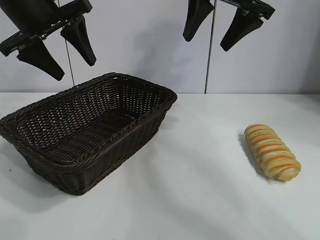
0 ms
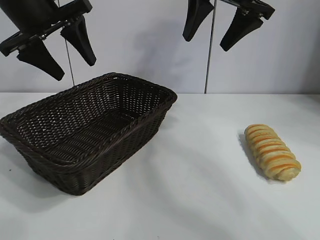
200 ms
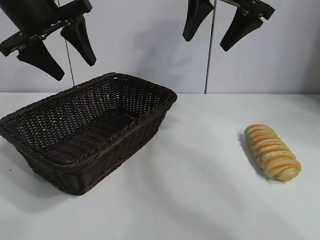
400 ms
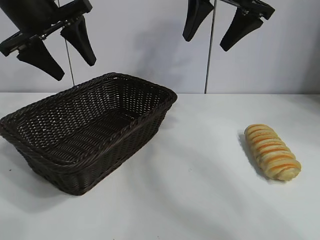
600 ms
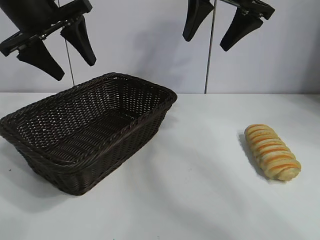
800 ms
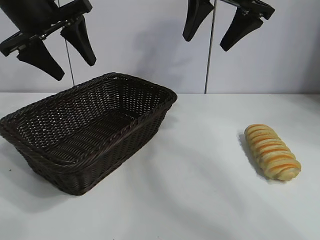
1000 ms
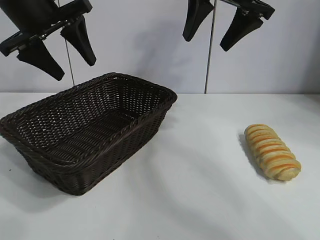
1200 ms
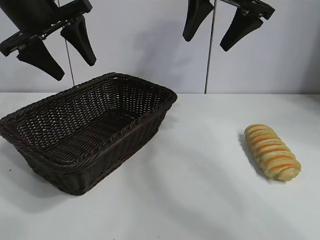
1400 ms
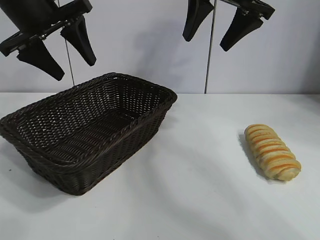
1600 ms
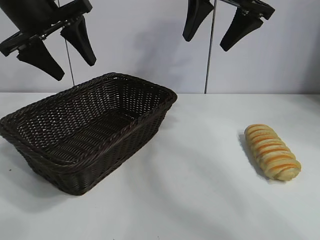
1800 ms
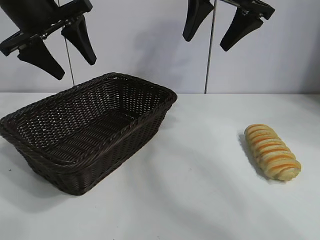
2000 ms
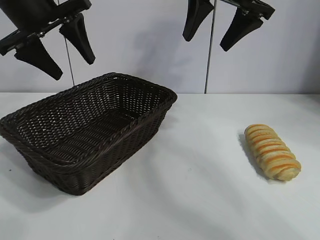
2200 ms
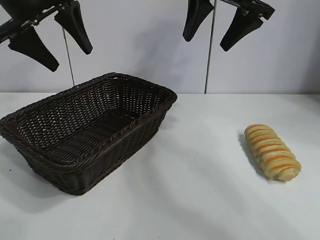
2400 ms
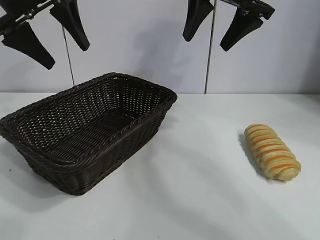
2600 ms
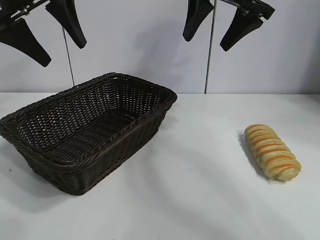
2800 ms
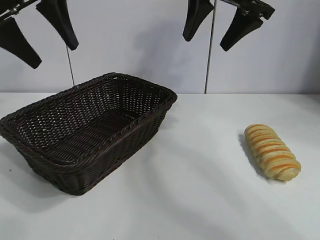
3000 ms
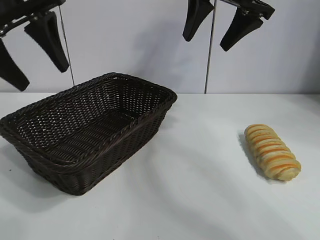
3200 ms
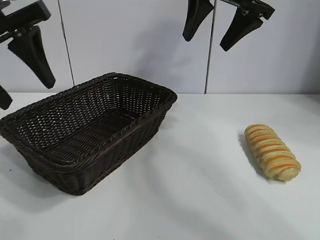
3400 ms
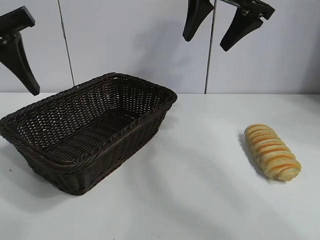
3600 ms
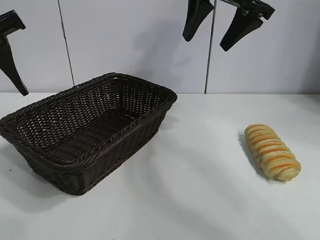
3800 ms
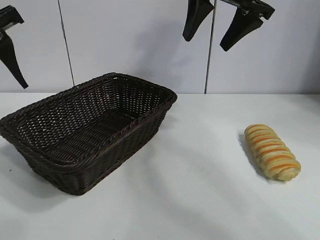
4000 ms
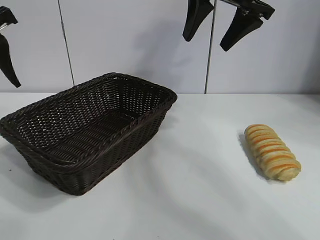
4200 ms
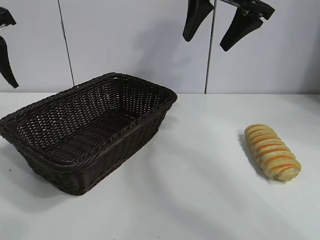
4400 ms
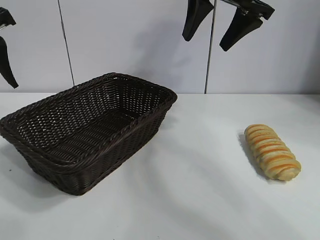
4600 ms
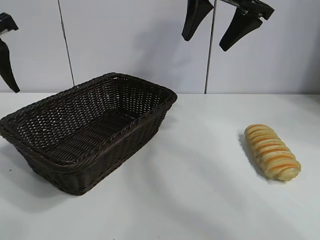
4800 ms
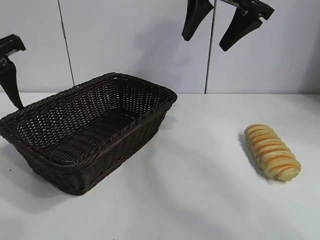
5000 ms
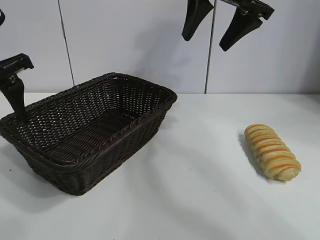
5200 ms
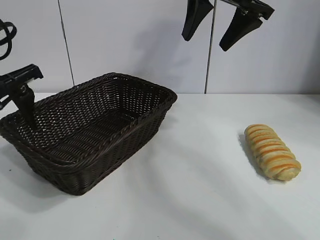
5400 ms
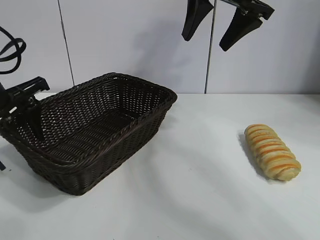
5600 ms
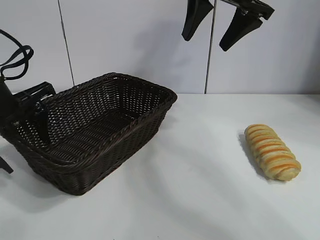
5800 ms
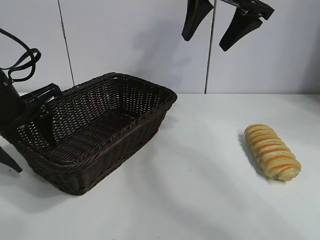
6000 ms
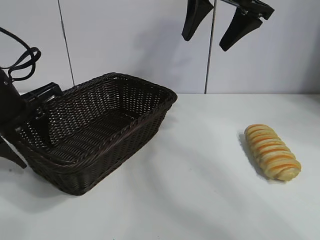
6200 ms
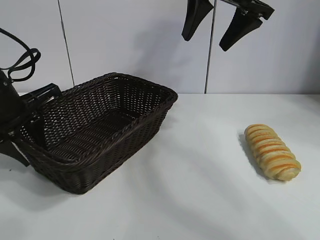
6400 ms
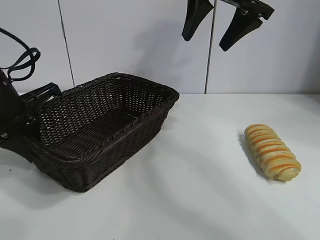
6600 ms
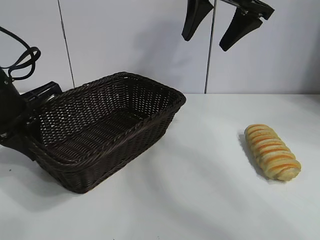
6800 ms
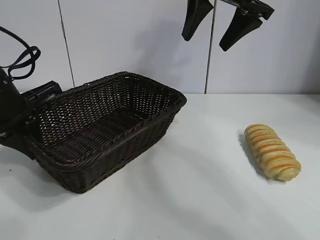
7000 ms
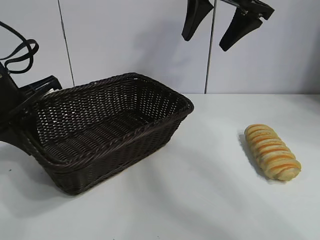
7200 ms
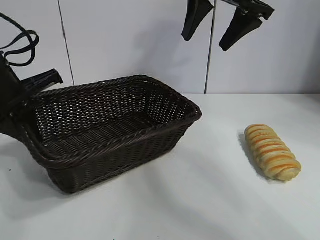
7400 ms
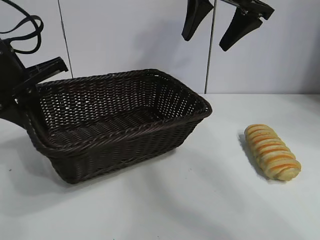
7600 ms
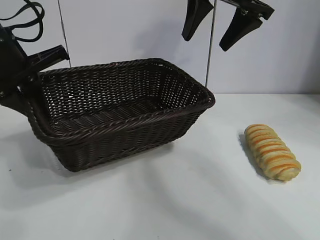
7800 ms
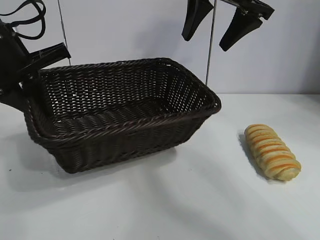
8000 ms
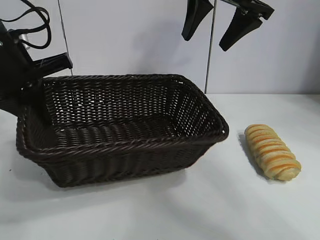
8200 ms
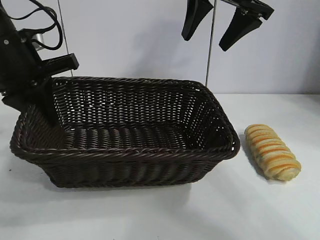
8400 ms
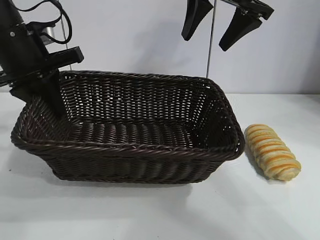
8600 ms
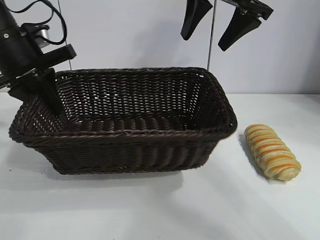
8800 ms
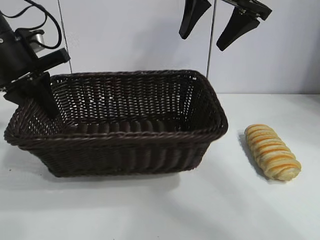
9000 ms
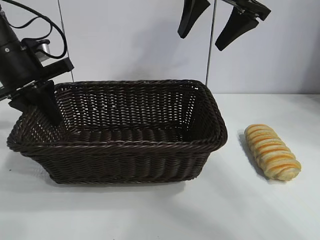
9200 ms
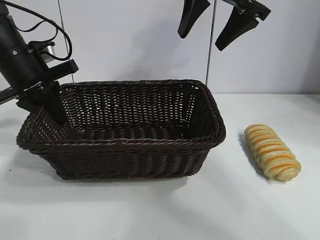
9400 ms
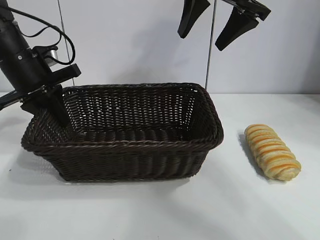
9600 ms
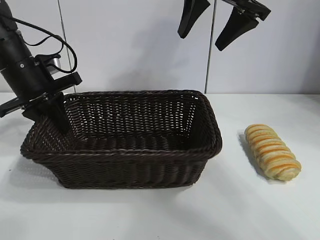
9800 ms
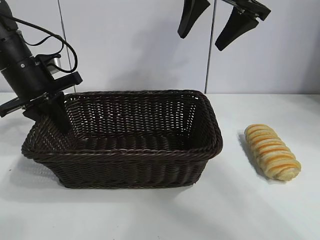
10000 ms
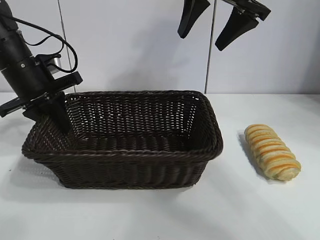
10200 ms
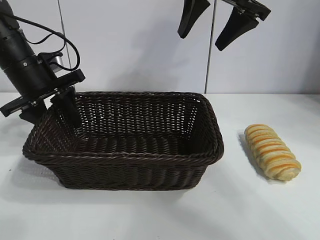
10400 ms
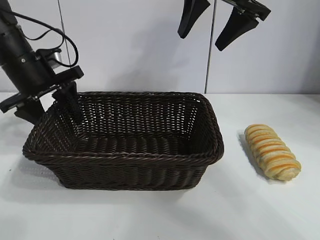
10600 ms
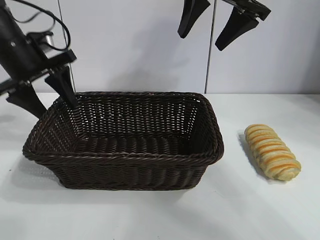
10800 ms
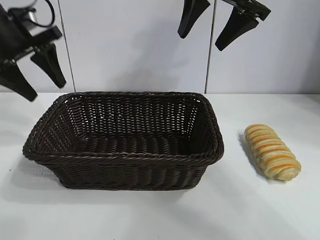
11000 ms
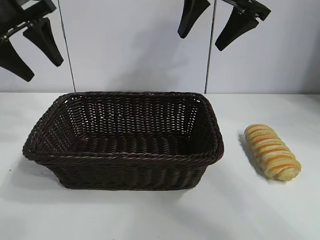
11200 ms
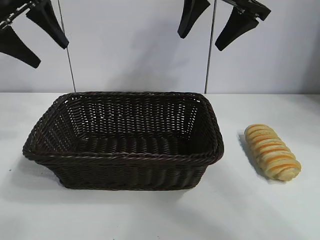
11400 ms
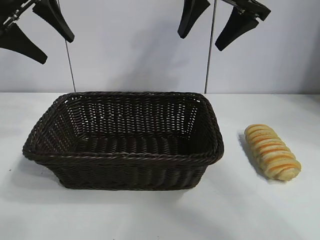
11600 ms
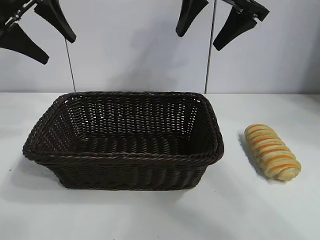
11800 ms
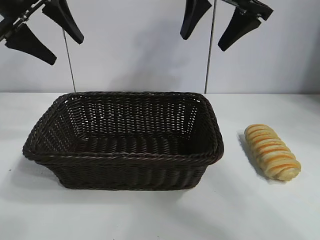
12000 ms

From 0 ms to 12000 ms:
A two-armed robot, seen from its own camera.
Task of the whole recording: pick up the long bread and put it into the basket.
Step, from 1600 ms to 6800 ms: Grasp the basket with the left gripper.
Step, from 7000 ms to 10400 ms: Place the basket in the center of the table with the left gripper.

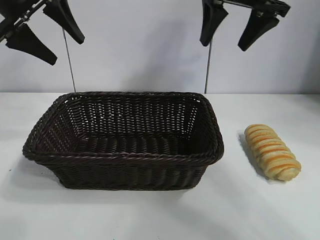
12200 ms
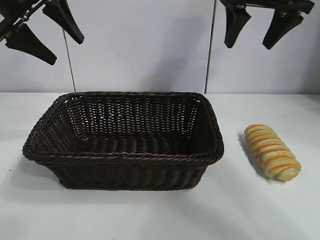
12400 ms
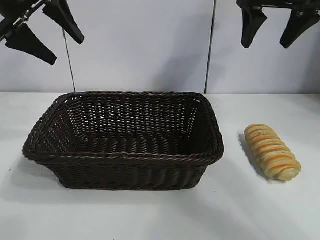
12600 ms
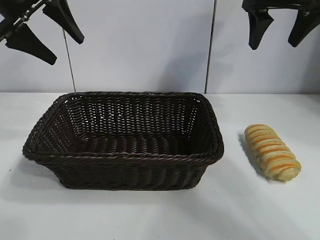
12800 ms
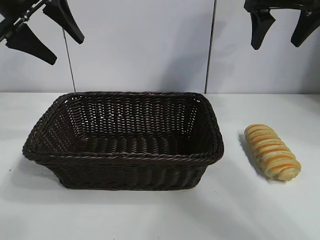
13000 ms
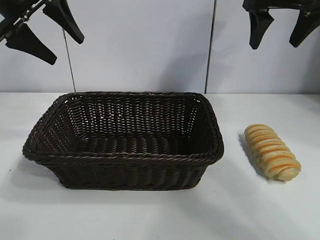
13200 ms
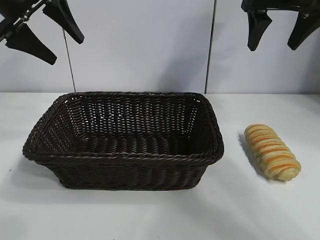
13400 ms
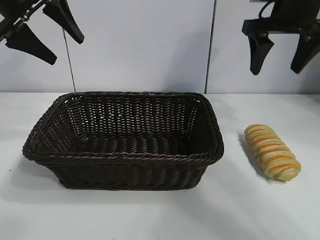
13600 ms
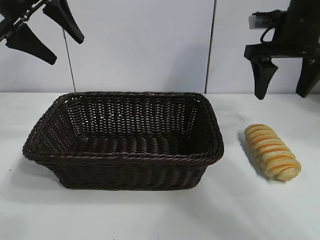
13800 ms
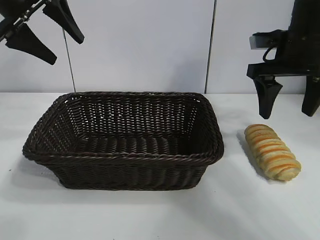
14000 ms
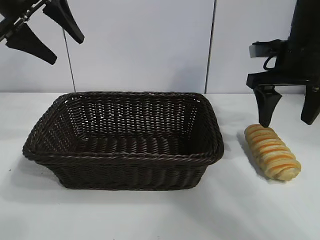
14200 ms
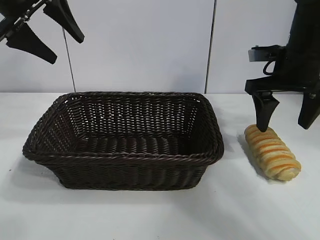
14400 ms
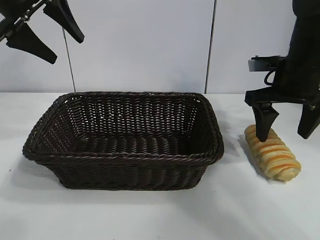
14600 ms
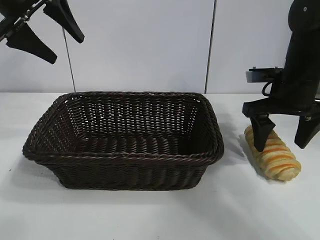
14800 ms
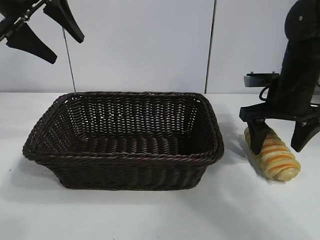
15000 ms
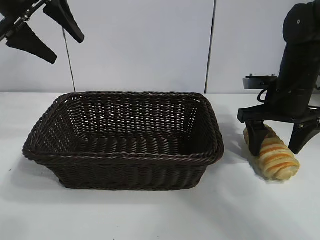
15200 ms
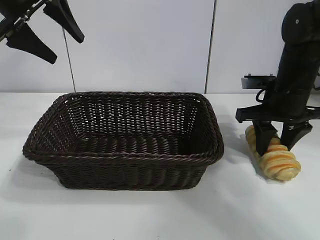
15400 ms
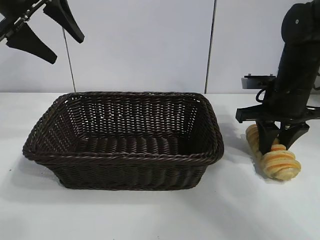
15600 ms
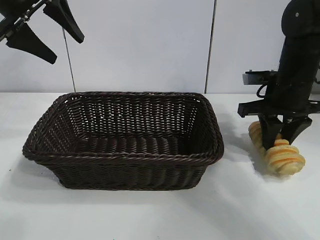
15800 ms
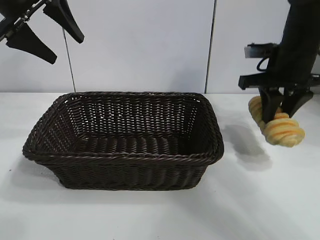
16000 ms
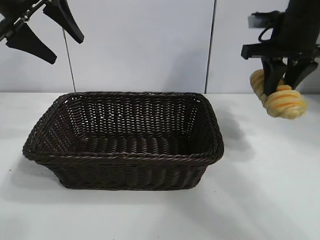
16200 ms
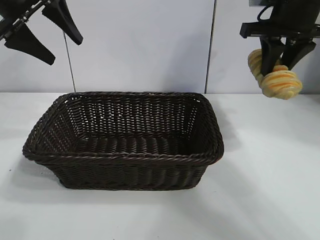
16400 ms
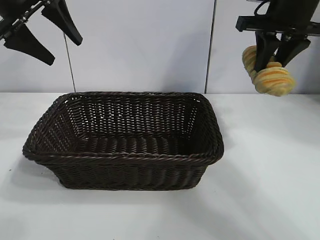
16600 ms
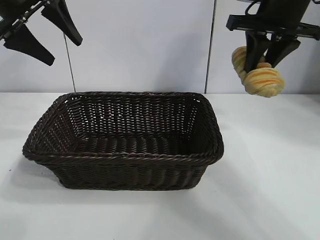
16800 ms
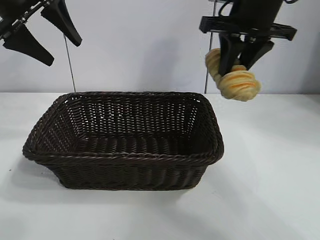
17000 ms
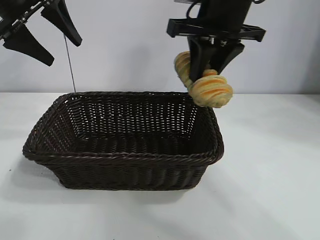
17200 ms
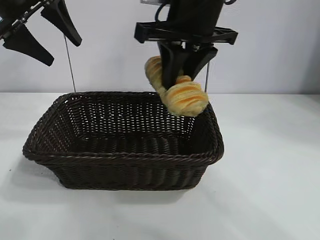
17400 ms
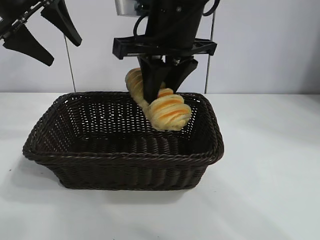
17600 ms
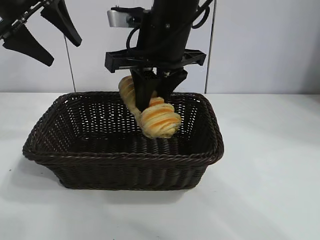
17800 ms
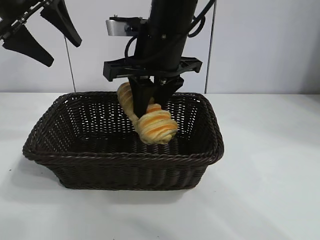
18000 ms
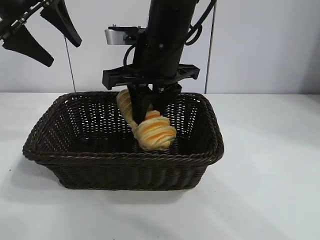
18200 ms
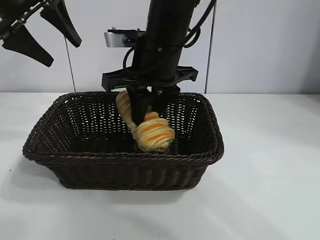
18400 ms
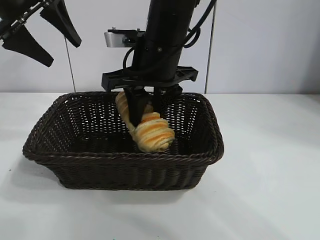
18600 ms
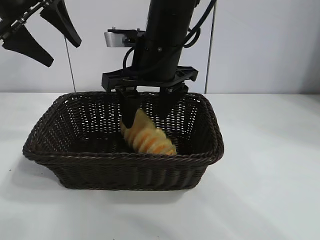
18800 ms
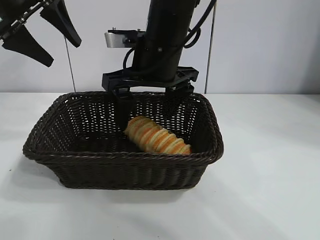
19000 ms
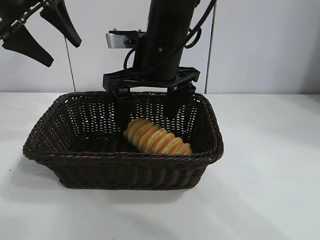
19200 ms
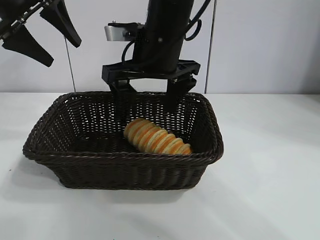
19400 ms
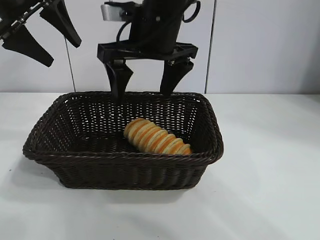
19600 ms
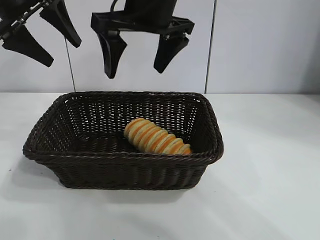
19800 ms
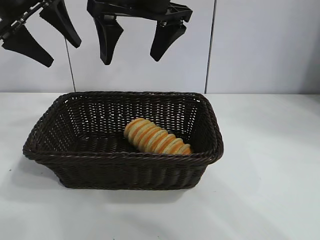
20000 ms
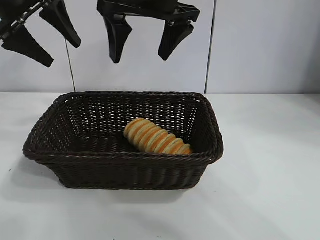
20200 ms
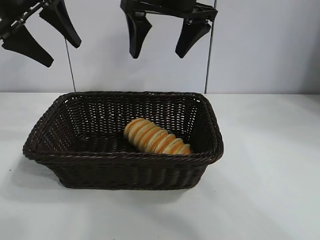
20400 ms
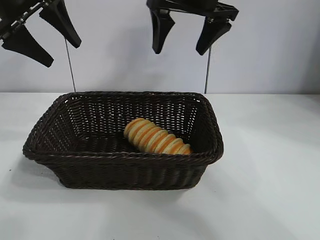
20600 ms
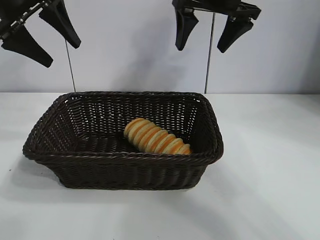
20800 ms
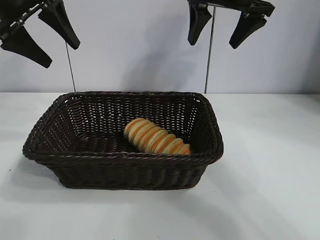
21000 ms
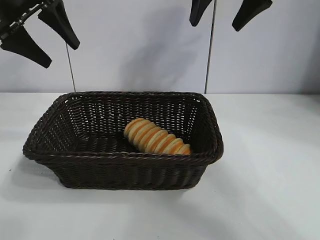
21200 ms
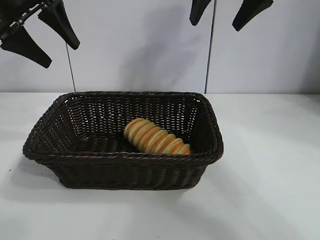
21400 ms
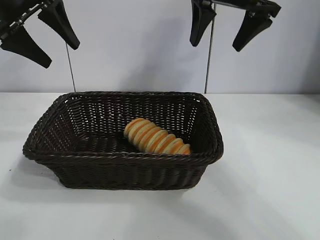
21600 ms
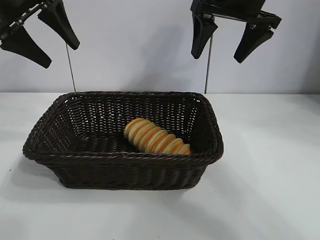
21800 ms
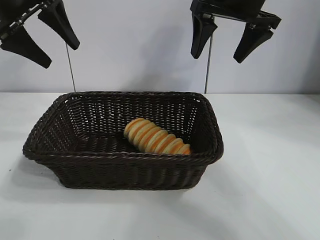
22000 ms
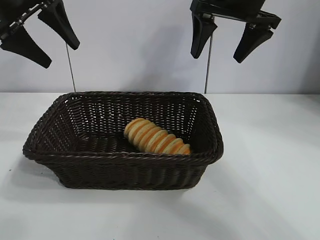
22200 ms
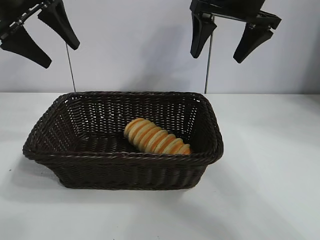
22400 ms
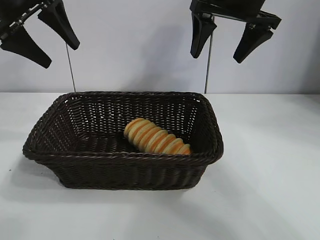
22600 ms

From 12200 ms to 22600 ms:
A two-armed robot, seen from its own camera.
Task of the whole recording: pick up the long bread and put it into the basket.
Step, from 12200 ms to 15600 ms: Grasp the long bread with right gripper.
Step, from 15800 ms to 19200 ms: Place the long bread in the basket with right gripper.
